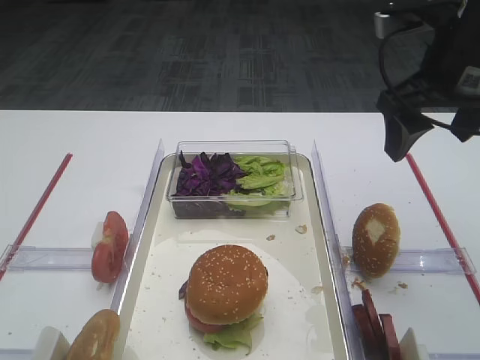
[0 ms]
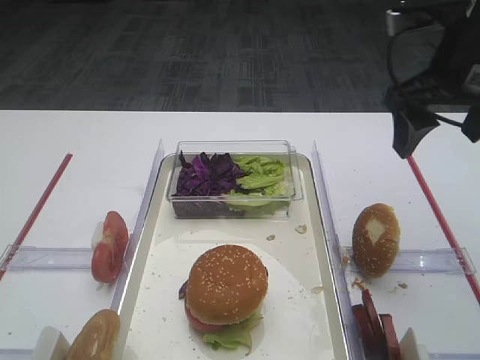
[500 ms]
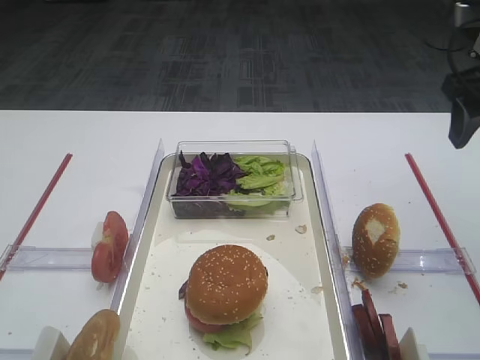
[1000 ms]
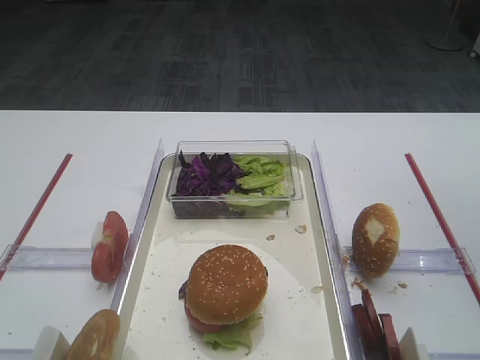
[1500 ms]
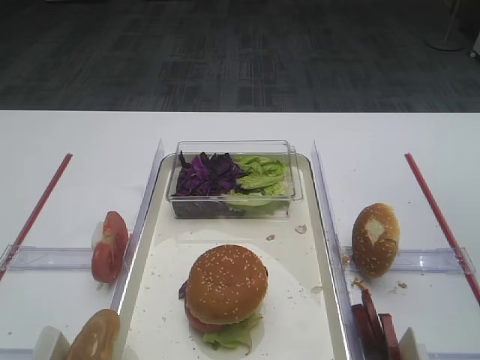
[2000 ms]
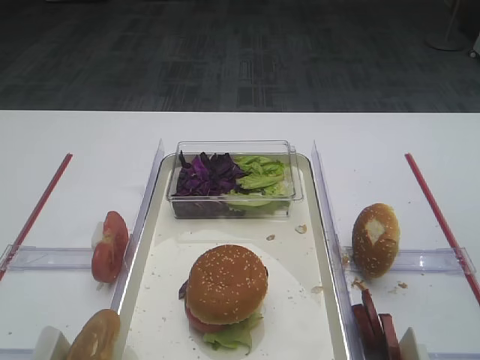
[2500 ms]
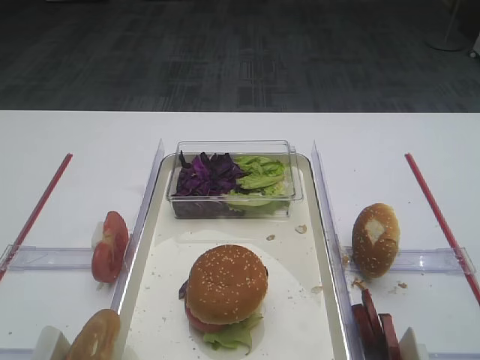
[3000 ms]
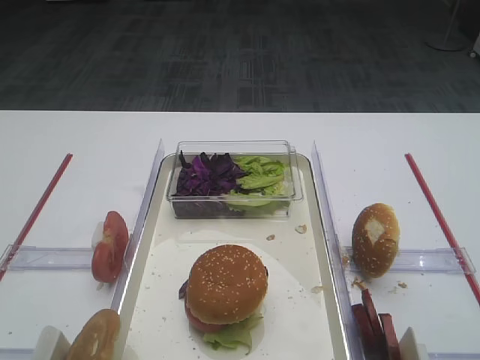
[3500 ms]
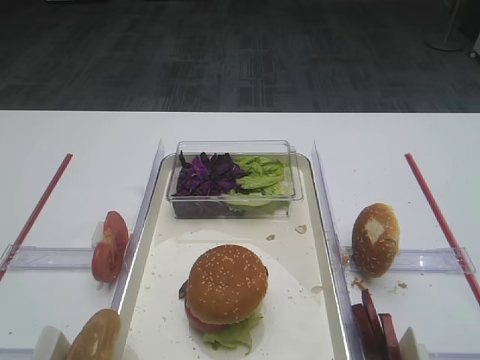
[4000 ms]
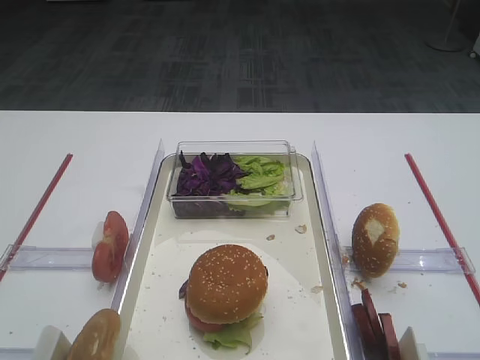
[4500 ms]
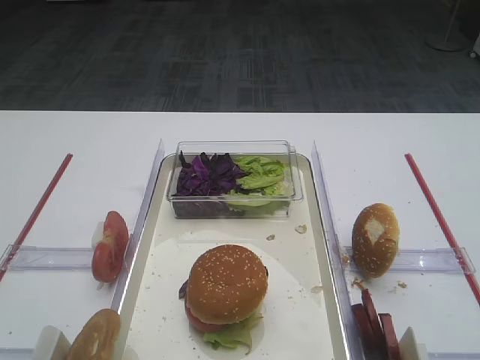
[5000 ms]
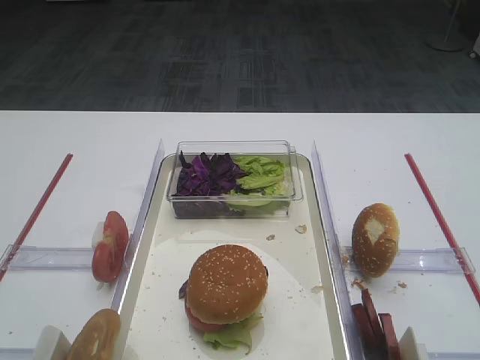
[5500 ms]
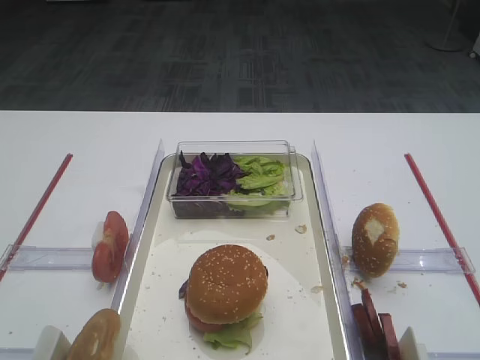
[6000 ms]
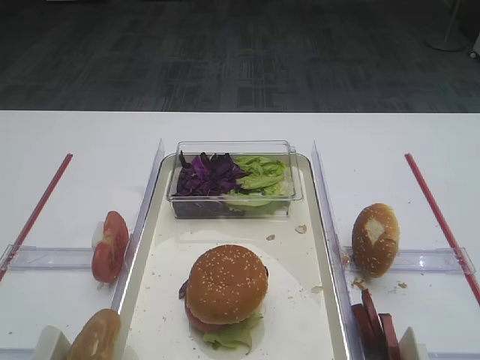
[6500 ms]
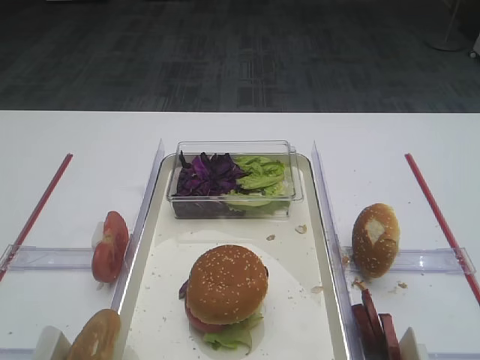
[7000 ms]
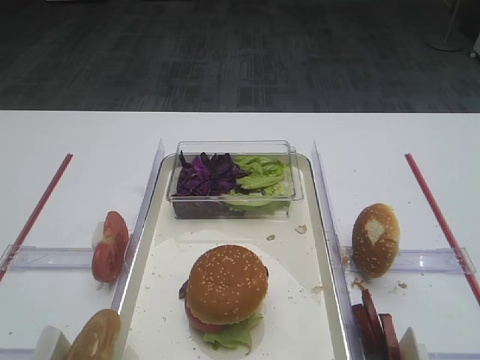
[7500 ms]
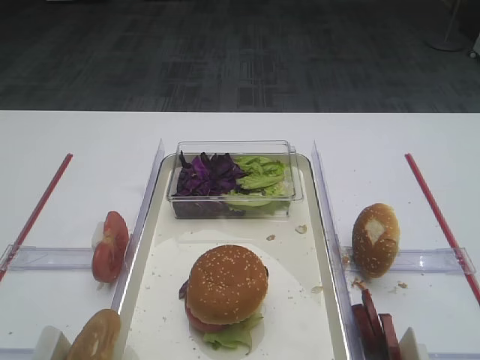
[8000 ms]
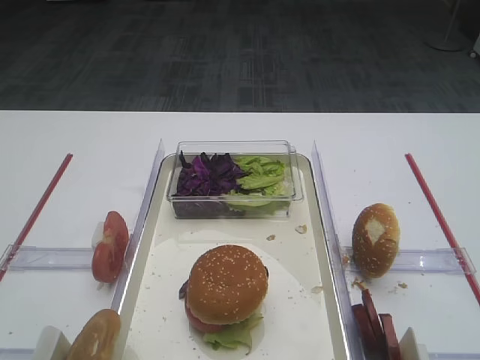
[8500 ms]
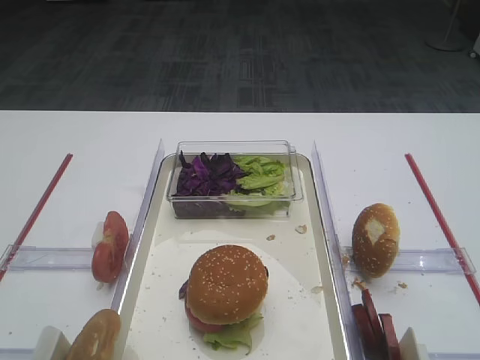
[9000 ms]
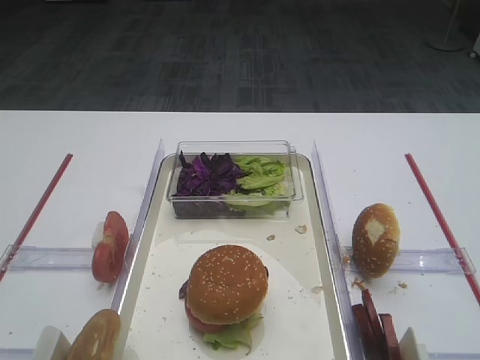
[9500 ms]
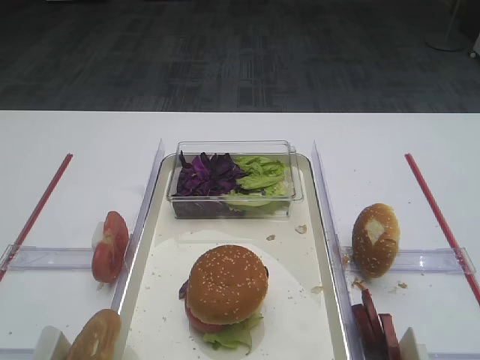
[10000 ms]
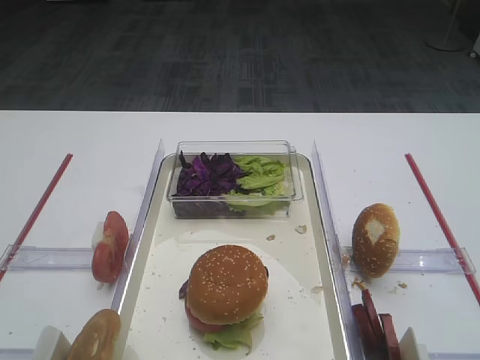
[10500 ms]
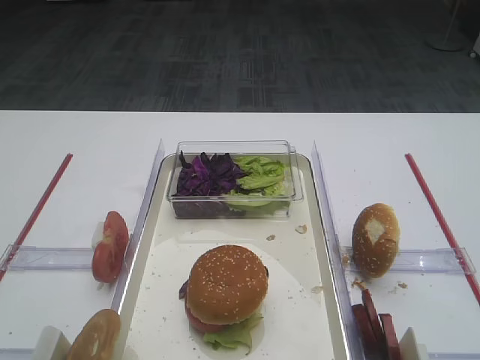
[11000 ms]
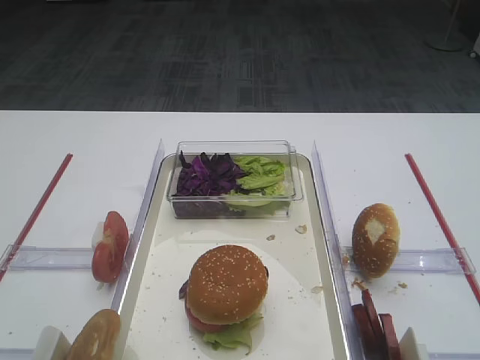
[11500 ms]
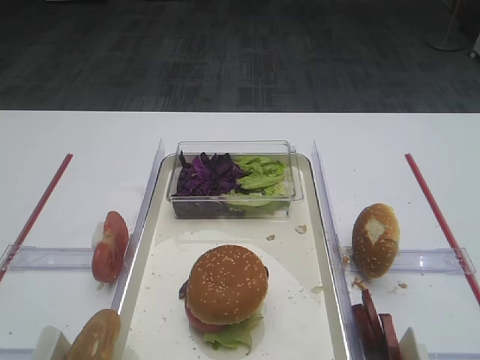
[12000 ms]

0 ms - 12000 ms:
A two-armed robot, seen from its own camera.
0 ms - 2000 ms: The right gripper travels to the right by some 10 cm.
6000 ms - 8000 ms: Both grippers stay about where they are.
10000 ms - 12000 ms: Neither gripper changes place.

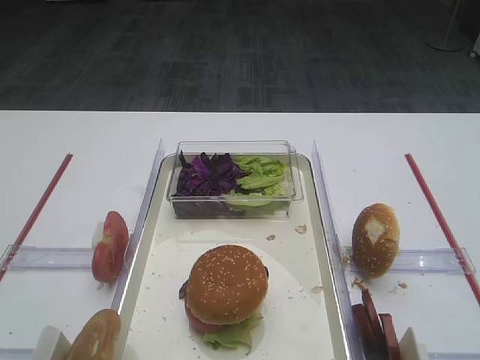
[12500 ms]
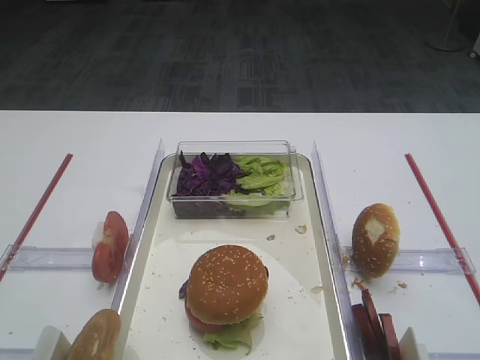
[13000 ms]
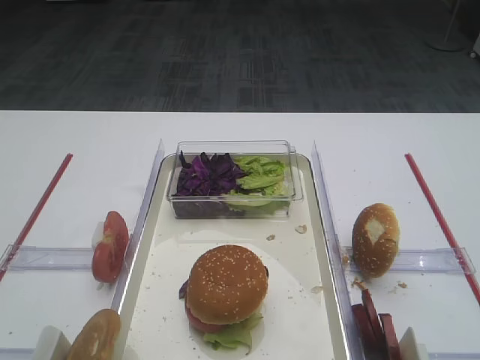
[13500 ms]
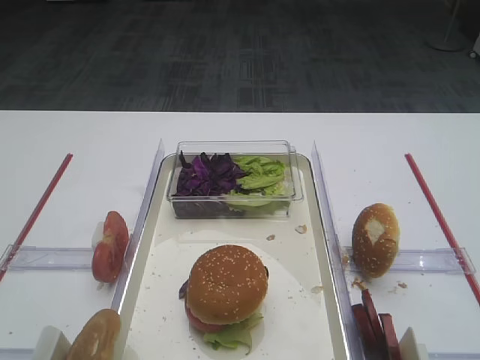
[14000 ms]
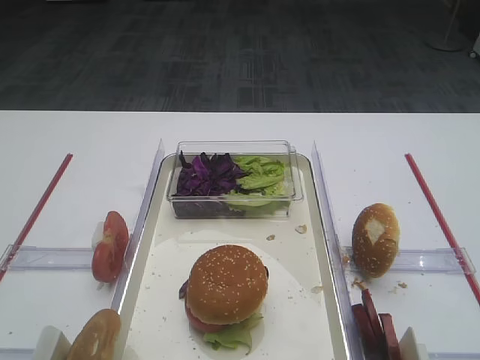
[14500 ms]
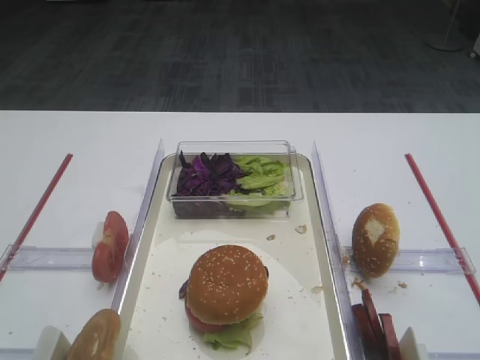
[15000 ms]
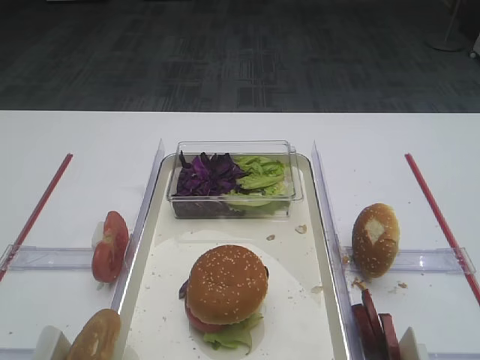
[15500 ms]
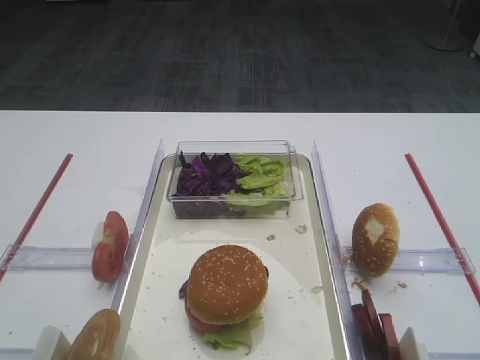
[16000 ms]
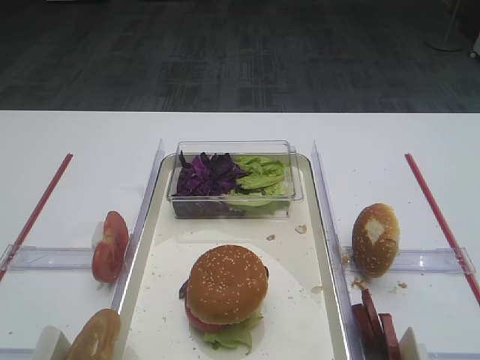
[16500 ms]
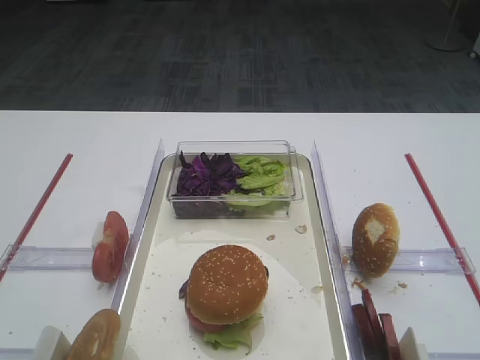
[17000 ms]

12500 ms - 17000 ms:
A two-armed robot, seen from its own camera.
12500 ms - 17000 ms: The two grippers keep their place.

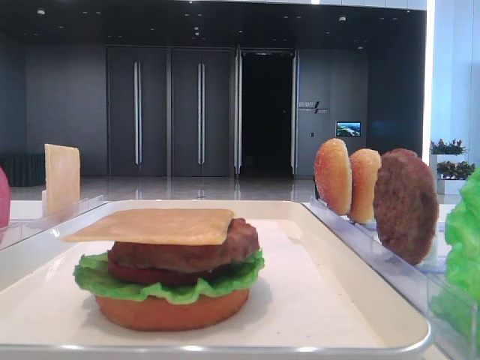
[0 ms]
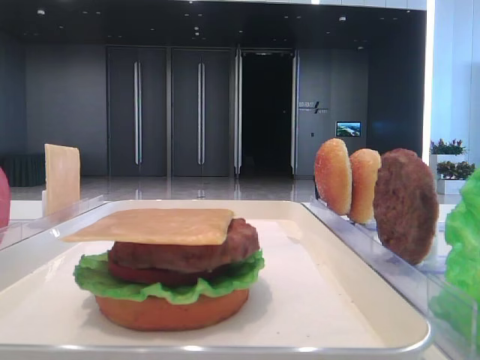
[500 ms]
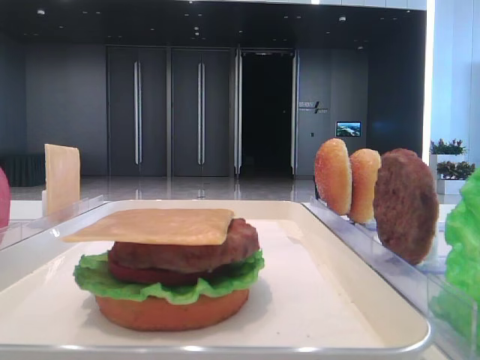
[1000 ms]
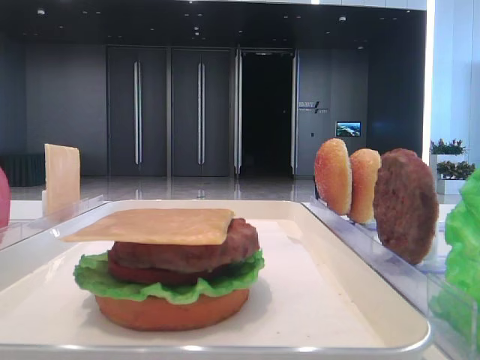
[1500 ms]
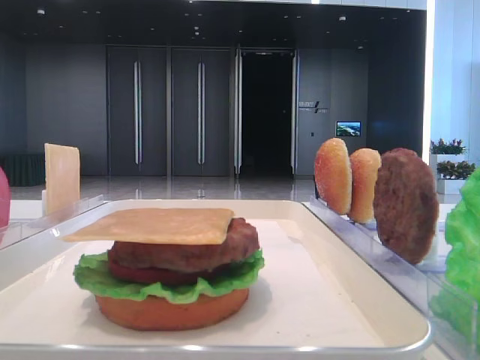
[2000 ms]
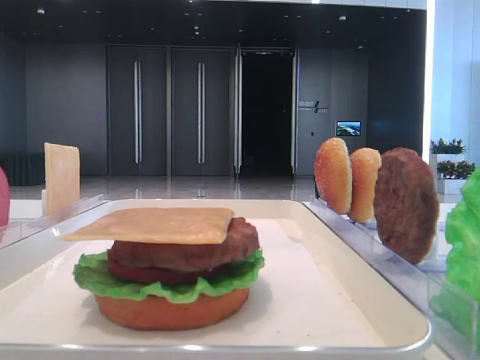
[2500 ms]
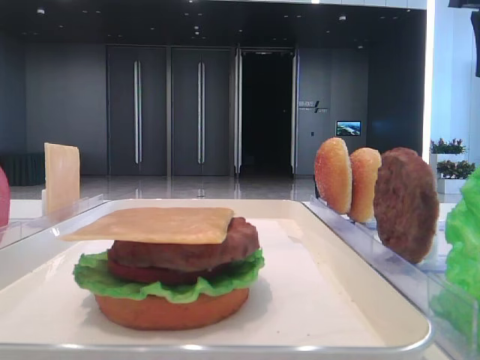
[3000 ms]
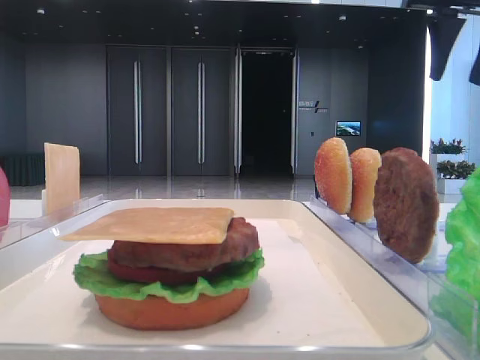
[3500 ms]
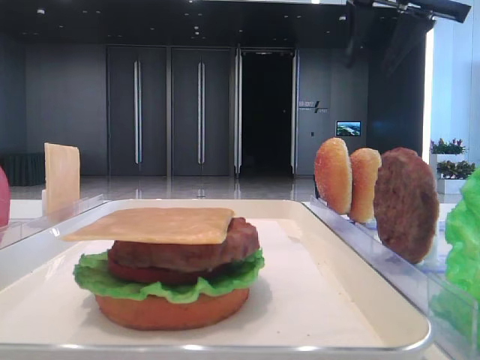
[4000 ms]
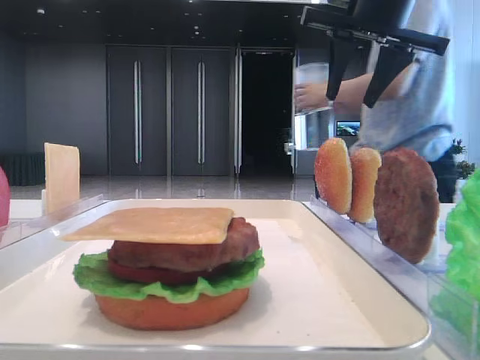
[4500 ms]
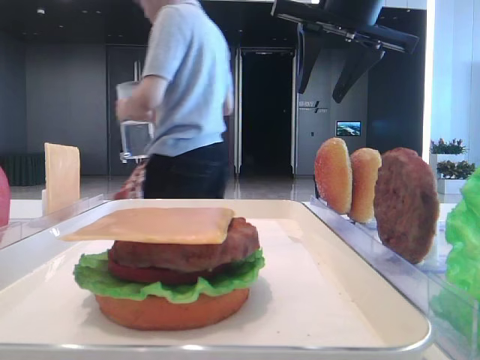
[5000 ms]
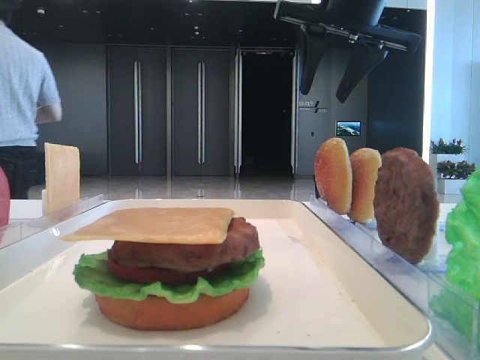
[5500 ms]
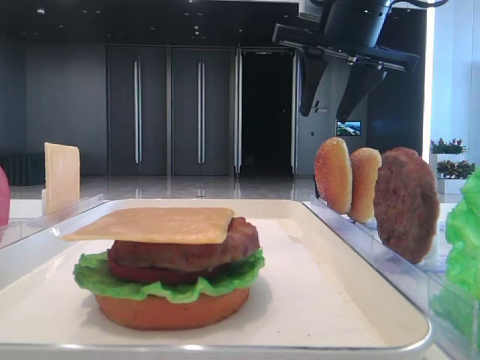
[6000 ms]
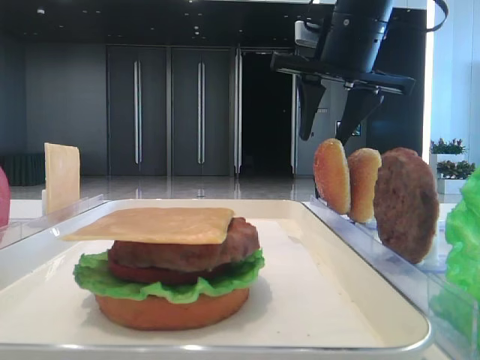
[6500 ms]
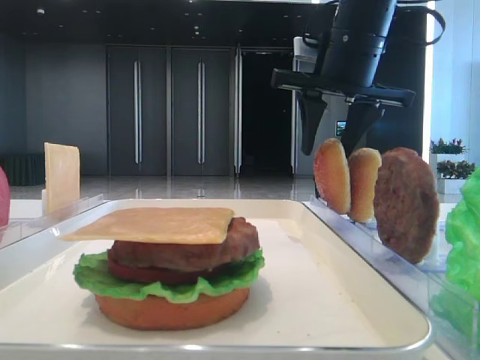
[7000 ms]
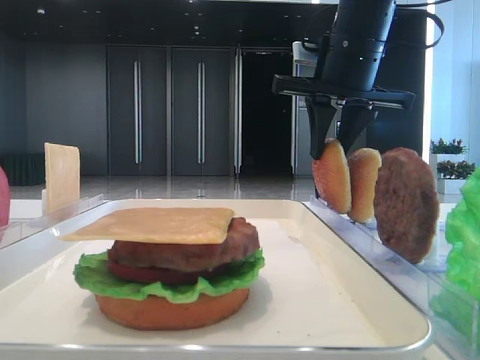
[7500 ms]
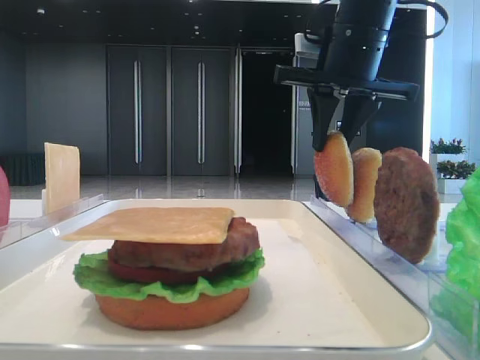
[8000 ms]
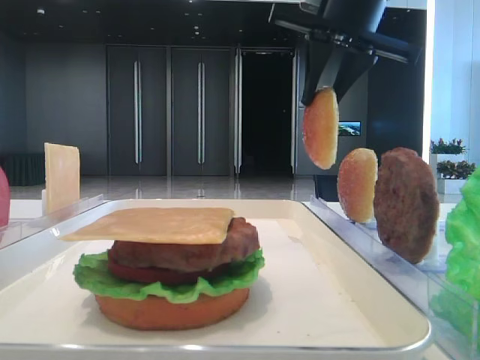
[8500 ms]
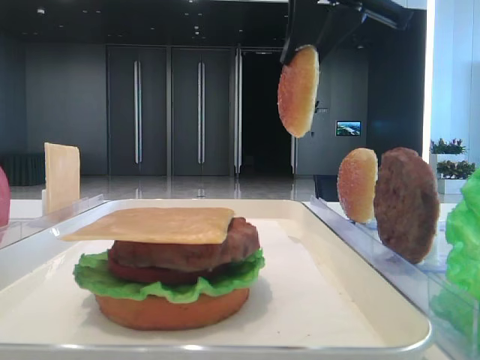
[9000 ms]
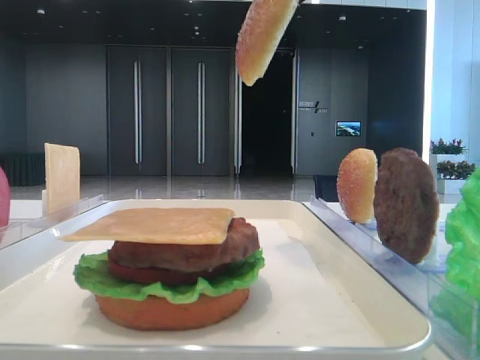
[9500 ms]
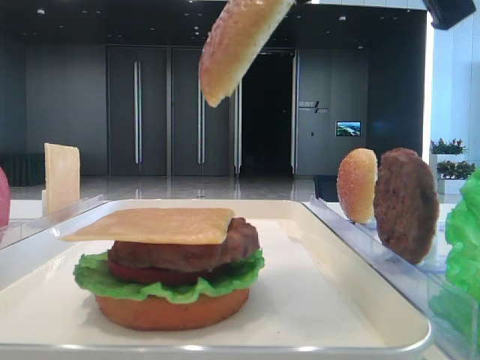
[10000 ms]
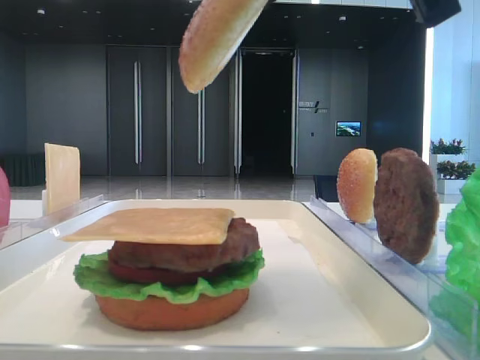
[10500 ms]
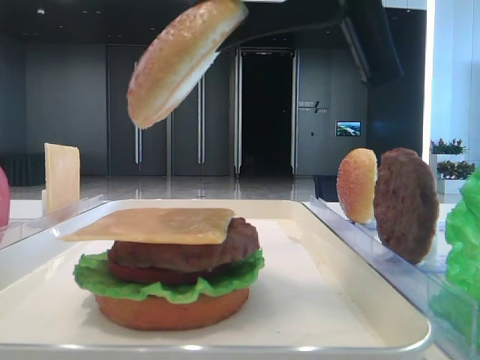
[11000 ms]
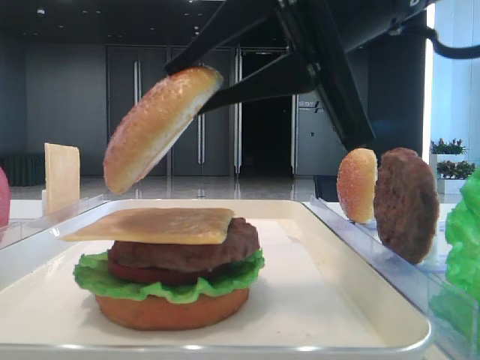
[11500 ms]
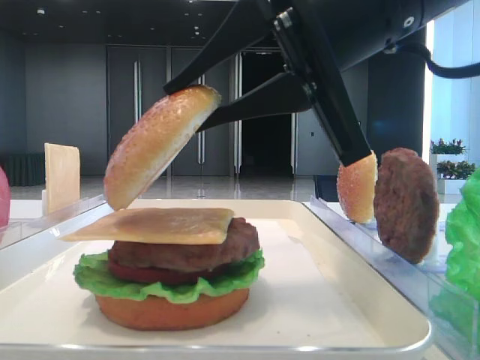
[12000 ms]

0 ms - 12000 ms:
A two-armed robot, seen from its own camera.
Step, 0 ms - 7500 ms: Pick up the top bread slice with the right hand.
2000 ms - 4000 ms: The right gripper moves forward and to the left, approximately 20 cm.
4000 ms - 6000 ms: The right gripper moves to the left and downward, roughly 10 cm.
6000 ms - 8000 ms: The right gripper closes its fingers.
8000 ms - 10000 ms: The right gripper goes some 20 cm backward.
10000 ms - 12000 ms: The right gripper is displaced downward by approximately 10 cm.
